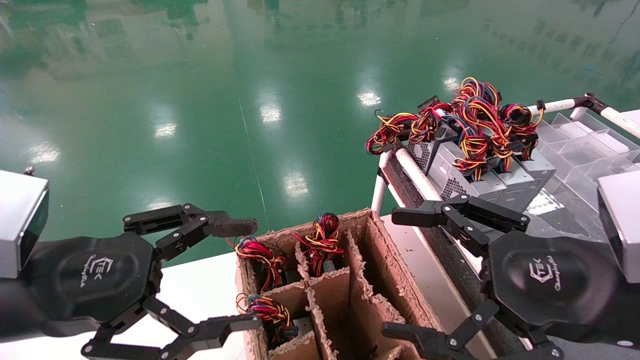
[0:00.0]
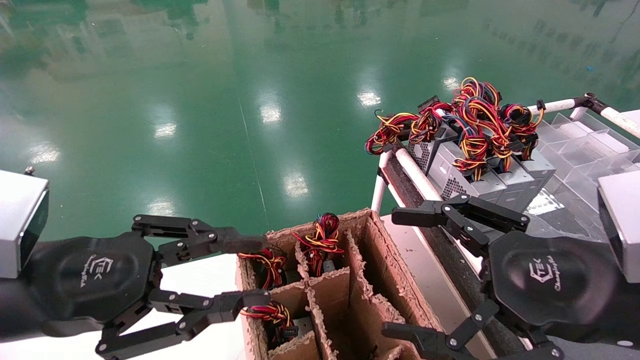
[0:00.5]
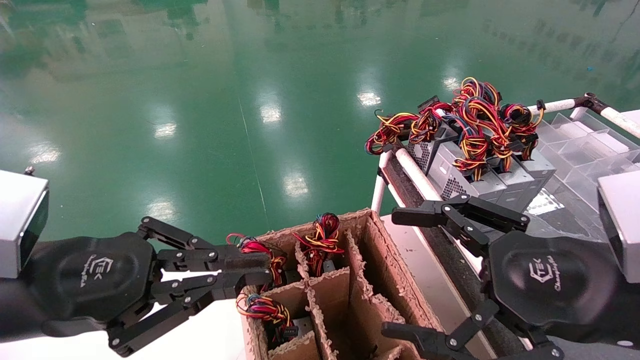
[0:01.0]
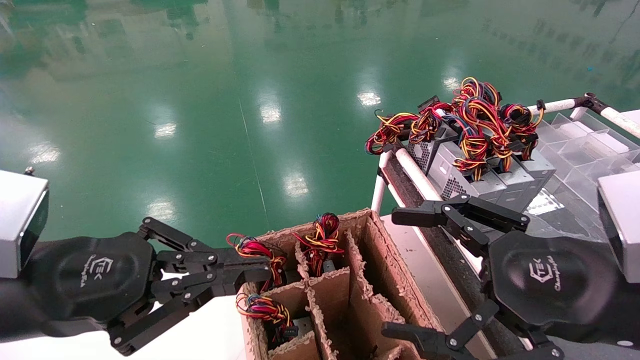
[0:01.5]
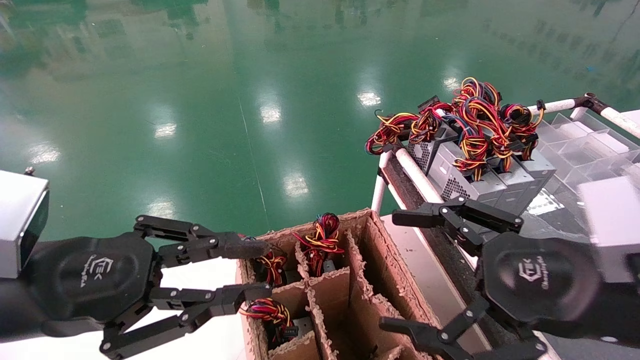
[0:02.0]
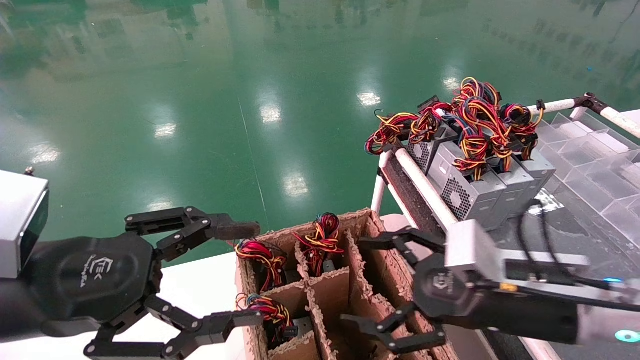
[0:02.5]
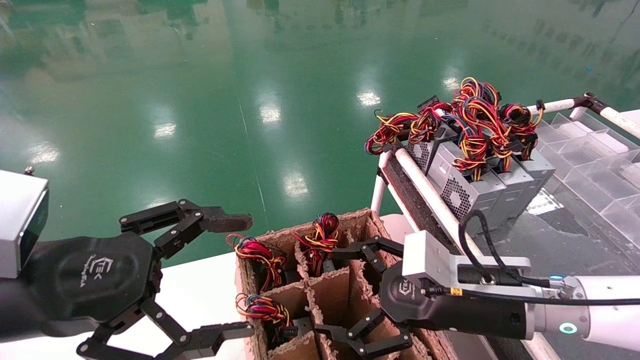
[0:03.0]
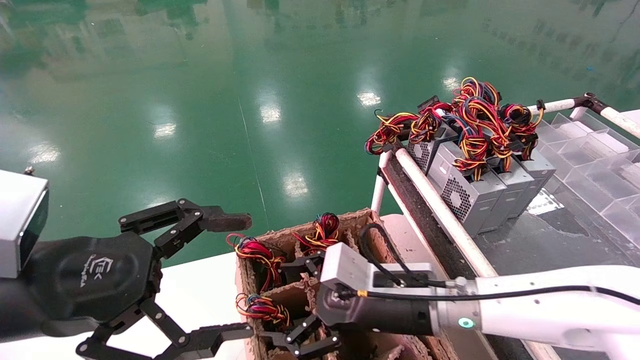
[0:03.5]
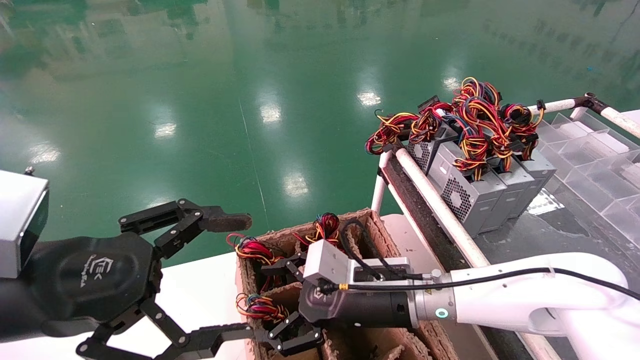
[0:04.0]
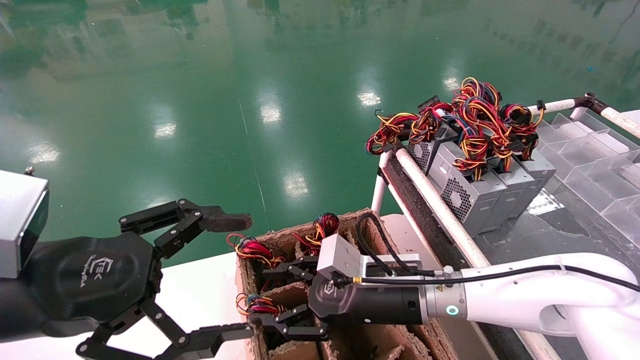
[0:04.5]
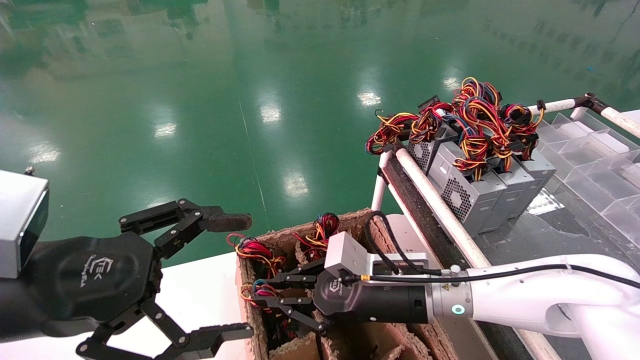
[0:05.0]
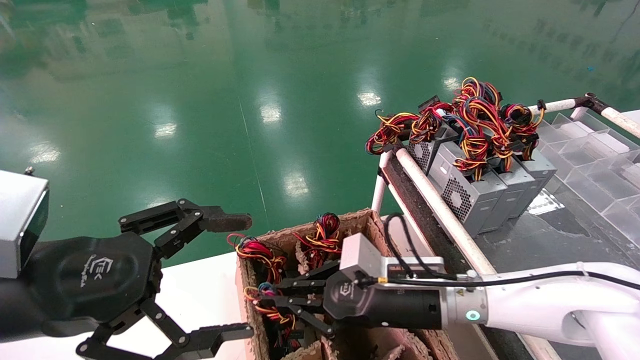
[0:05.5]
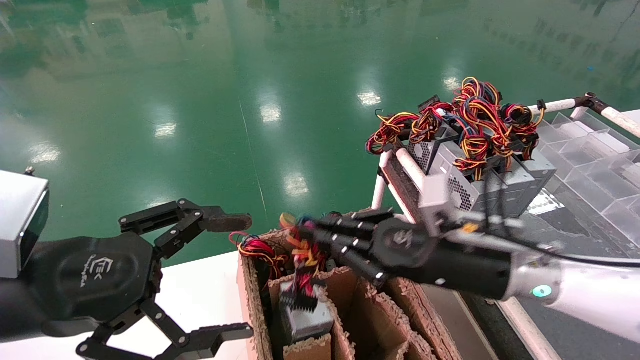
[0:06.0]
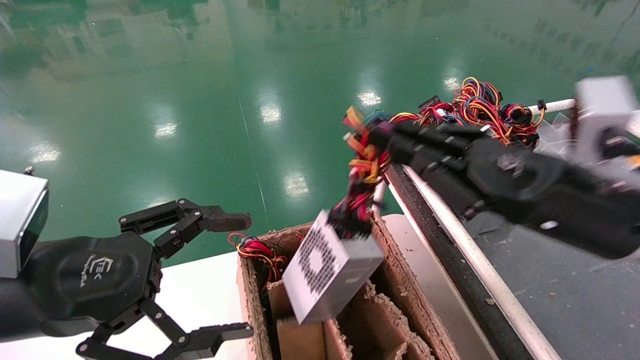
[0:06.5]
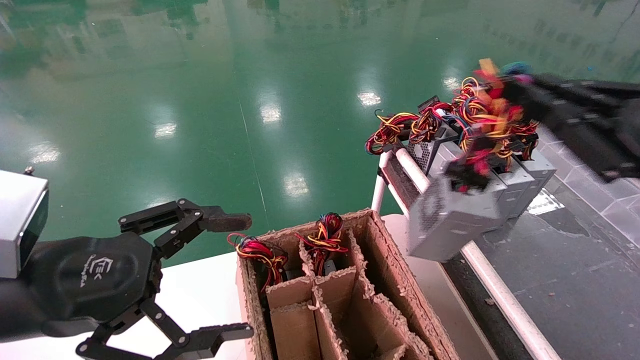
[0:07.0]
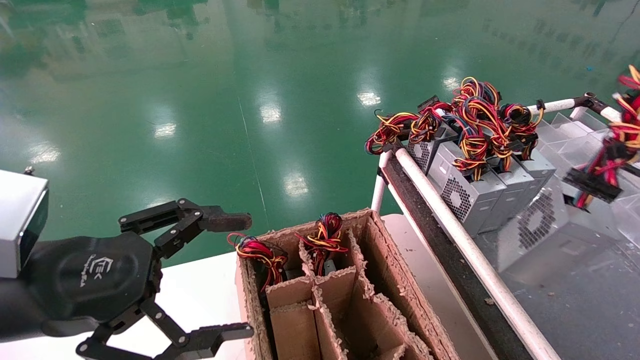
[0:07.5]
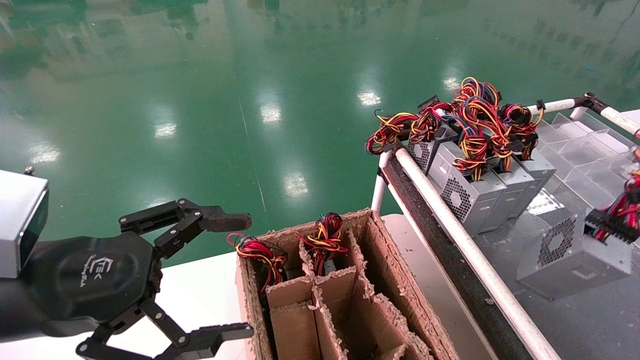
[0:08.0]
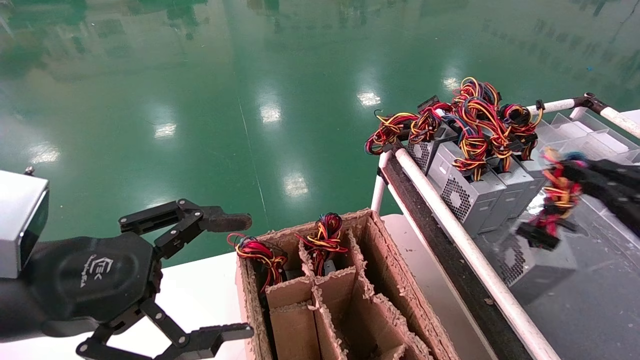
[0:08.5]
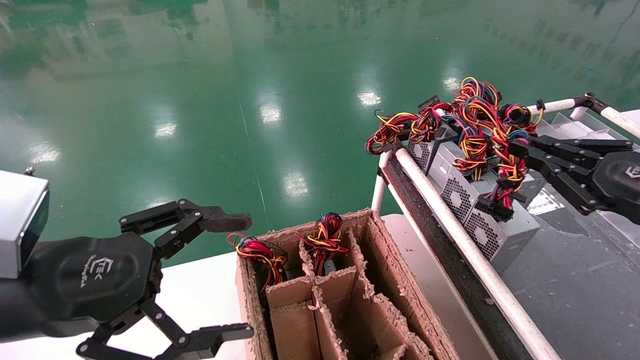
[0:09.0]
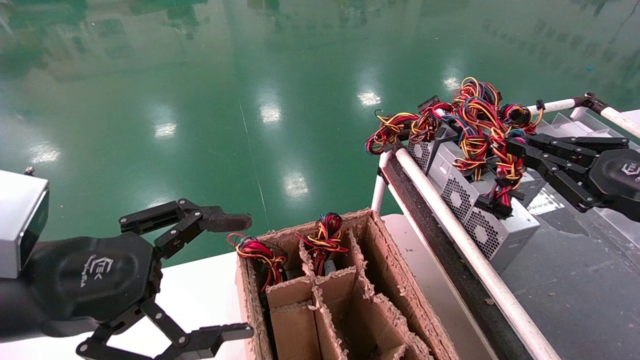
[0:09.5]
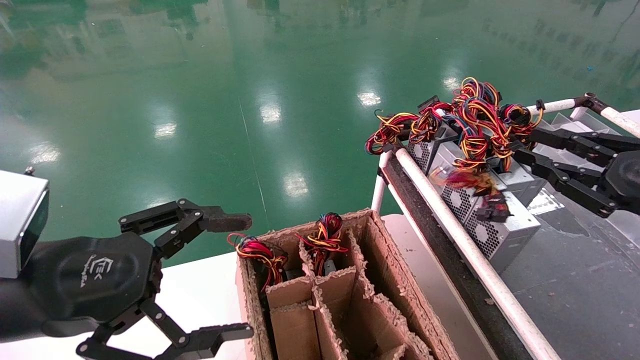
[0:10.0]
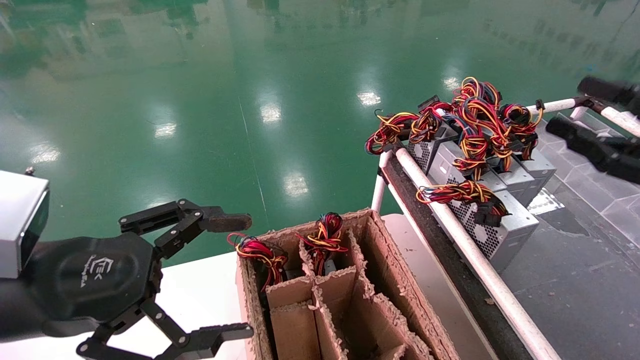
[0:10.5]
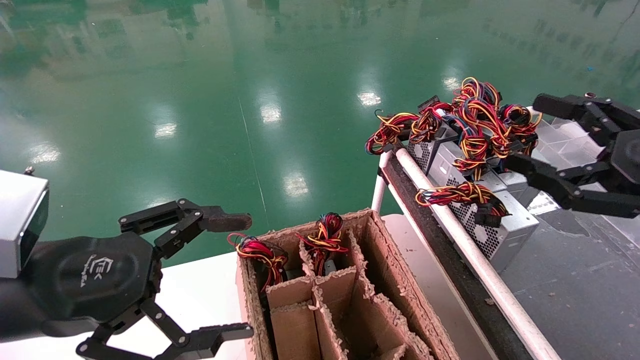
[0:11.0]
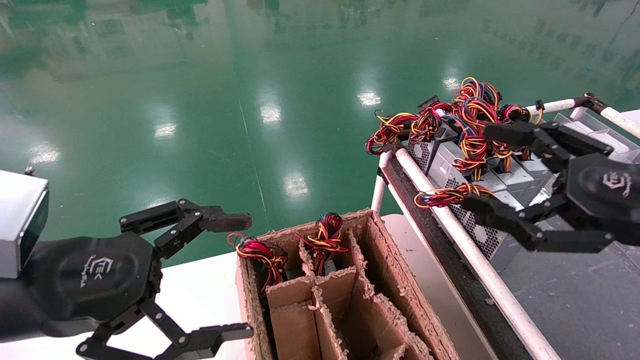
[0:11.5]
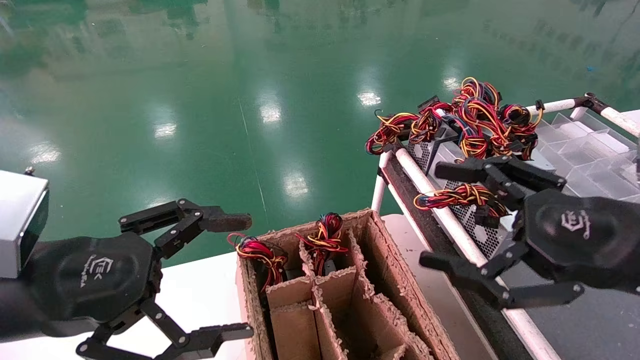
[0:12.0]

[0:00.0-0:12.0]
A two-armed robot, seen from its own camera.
Step, 0:01.5 to 0:05.0: Grab and lift the power supply from the large box.
Step, 0:05.5 to 0:09.5: Place the power supply on the operating table.
0:00.0 to 0:02.0: The left gripper closes up.
0:02.0 to 0:04.0: The left gripper opens. Meanwhile the right gripper moves to the left, forward and downward, approximately 25 cm.
0:04.0 to 0:06.0: The right gripper goes about 10 cm to the right and upward, and closes up.
0:06.0 to 0:08.0: The right gripper moves to the right and backward, some 35 cm.
0:08.0 to 0:10.0: The right gripper heads forward and to the left, covering about 10 cm.
0:10.0 to 0:12.0: The right gripper shifts roughly 15 cm to the left and backward, and opens up.

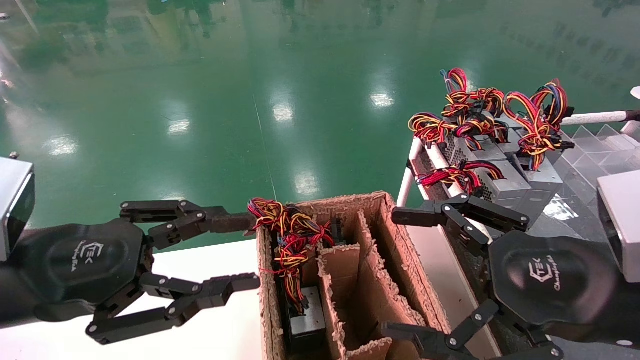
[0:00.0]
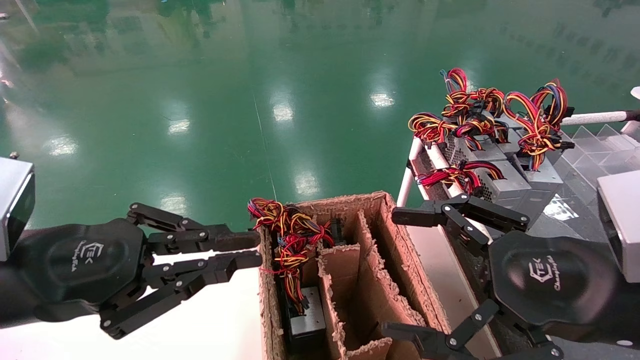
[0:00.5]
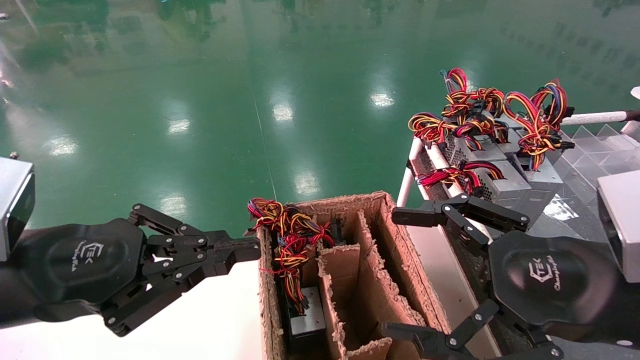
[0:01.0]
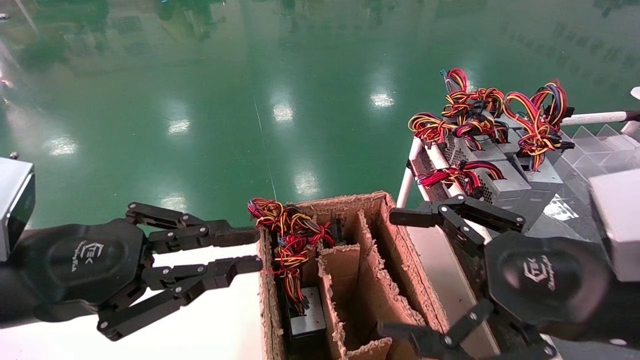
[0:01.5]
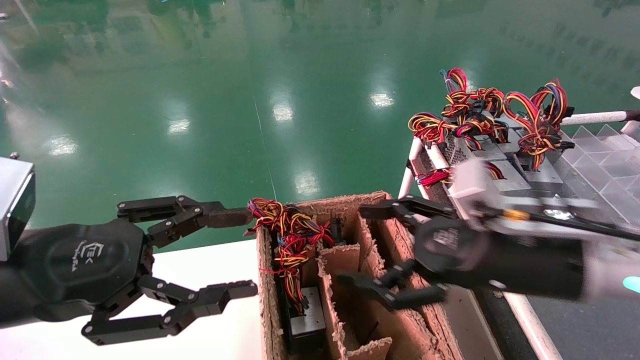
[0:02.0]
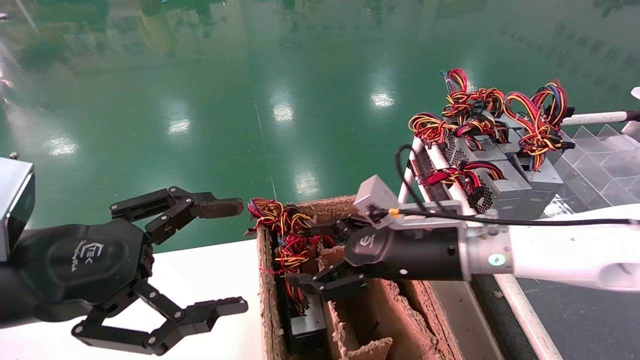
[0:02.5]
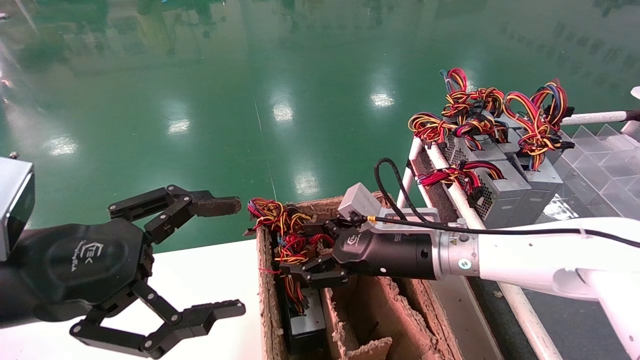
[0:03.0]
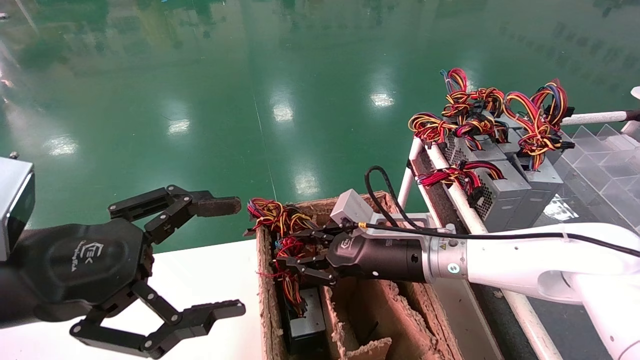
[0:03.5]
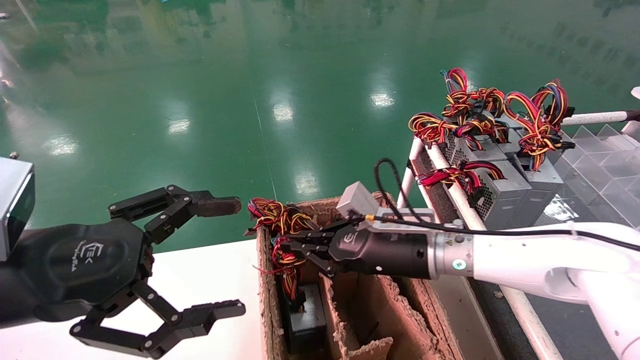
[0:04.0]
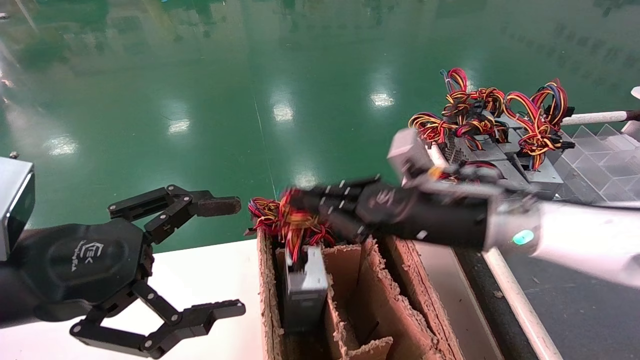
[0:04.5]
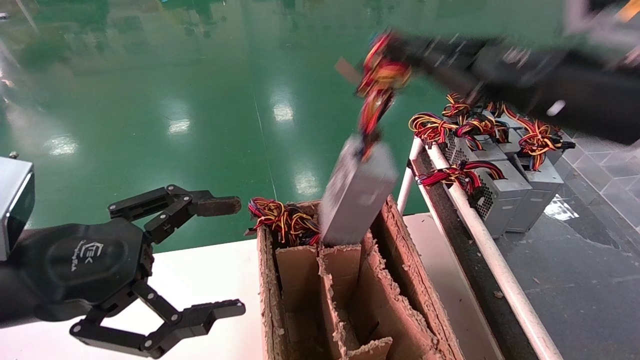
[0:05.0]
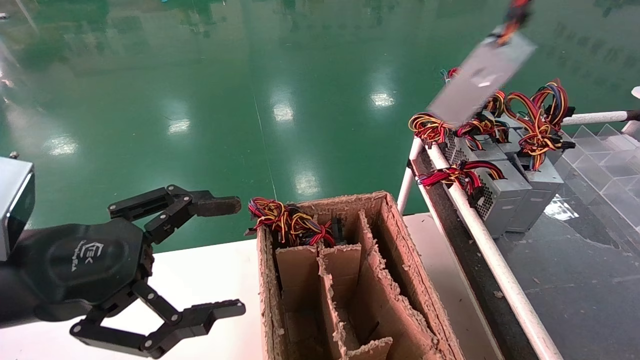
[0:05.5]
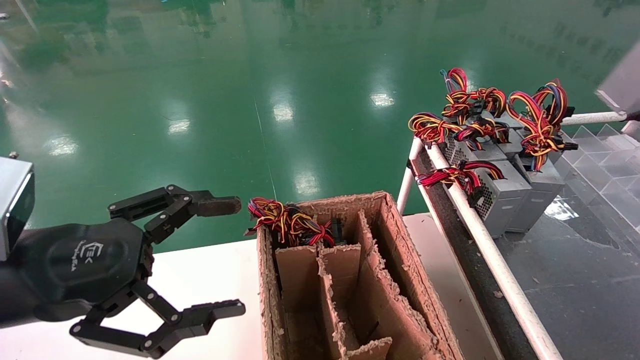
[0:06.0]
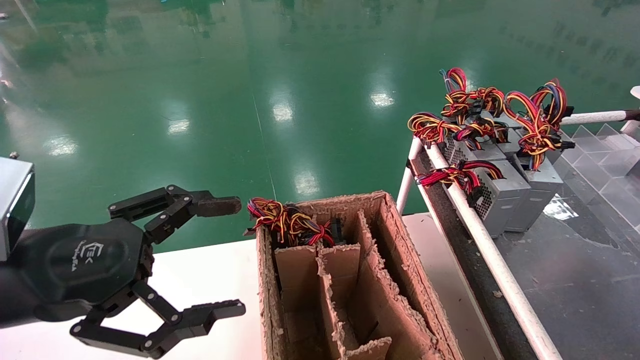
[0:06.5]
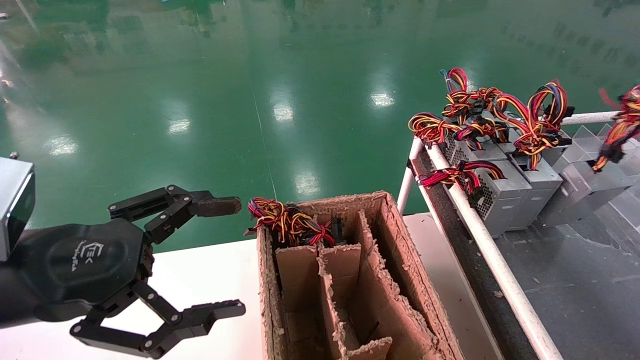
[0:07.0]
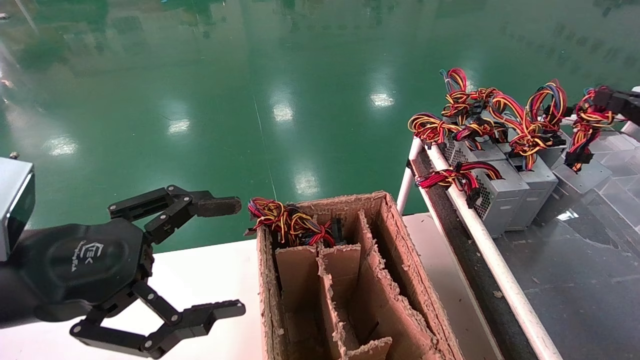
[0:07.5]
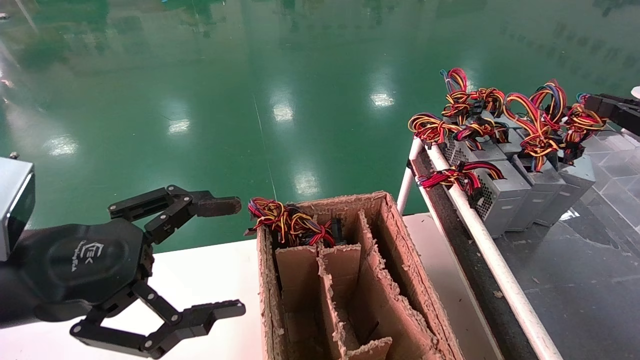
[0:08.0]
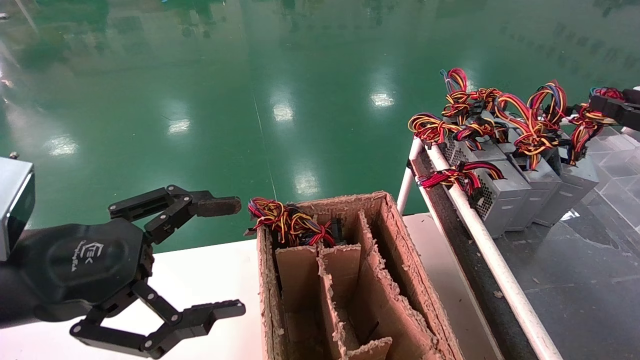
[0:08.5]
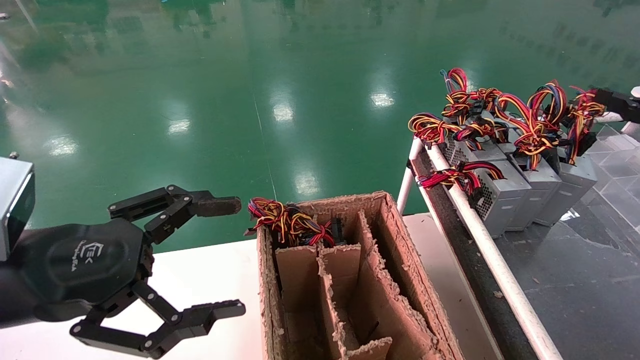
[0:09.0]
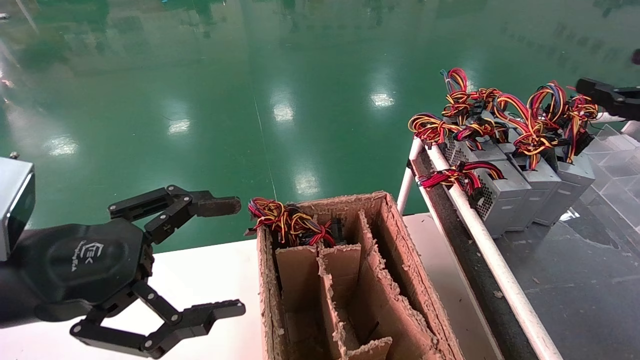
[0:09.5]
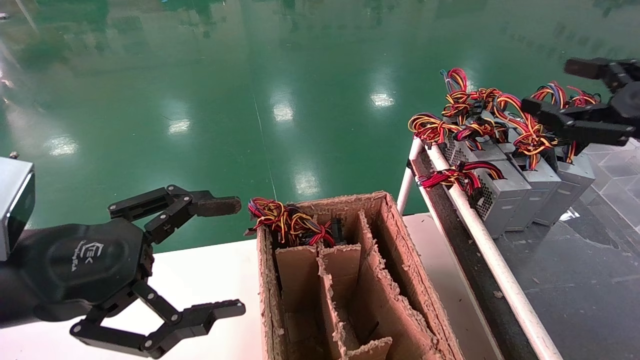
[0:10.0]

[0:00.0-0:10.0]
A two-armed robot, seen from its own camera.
Step, 0:01.0 to 0:04.0: Grab and lift the power supply from the large box.
Step, 0:04.5 to 0:08.0: Place the power supply on the operating table.
0:00.0 to 0:02.0: The left gripper closes, then opens again, while the right gripper travels forward by about 10 cm.
0:02.0 to 0:04.0: The left gripper opens, while the right gripper is displaced forward, to the left and downward by some 15 cm, and closes its fingers.
0:04.0 to 0:06.0: The right gripper goes approximately 50 cm to the right and upward.
0:06.0 to 0:08.0: The right gripper moves downward and forward, approximately 15 cm.
0:08.0 to 0:10.0: The right gripper moves to the left, about 10 cm, and opens.
